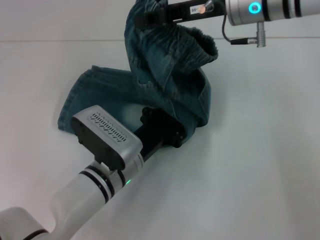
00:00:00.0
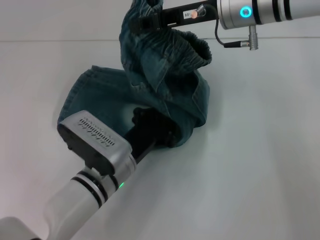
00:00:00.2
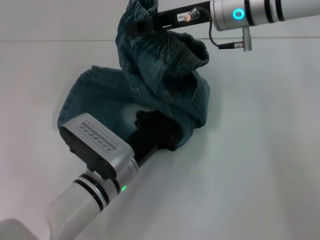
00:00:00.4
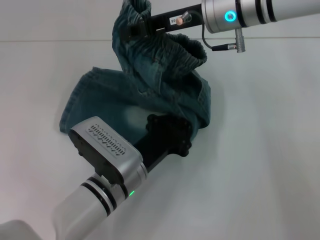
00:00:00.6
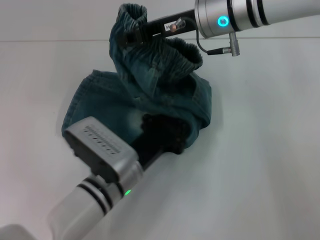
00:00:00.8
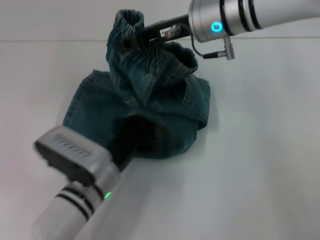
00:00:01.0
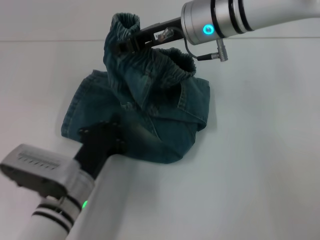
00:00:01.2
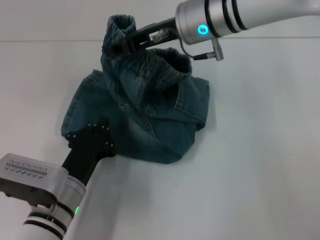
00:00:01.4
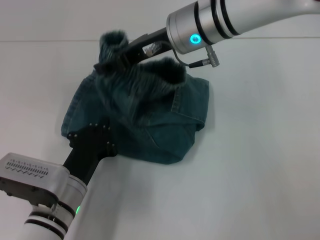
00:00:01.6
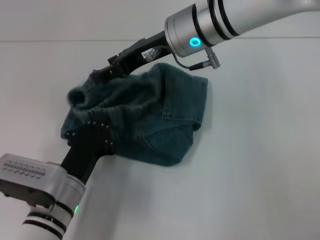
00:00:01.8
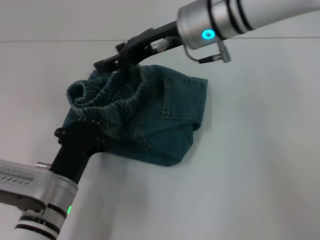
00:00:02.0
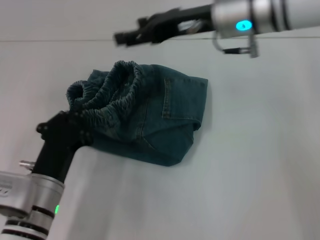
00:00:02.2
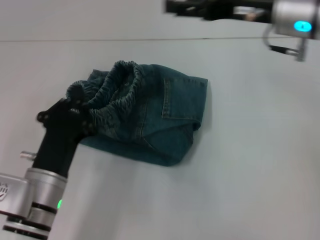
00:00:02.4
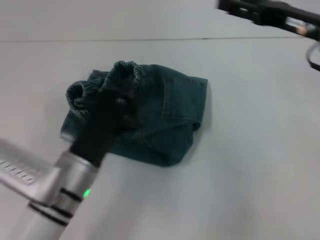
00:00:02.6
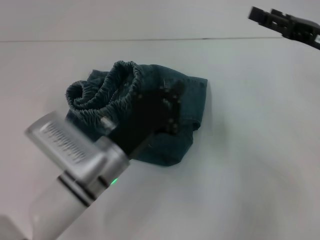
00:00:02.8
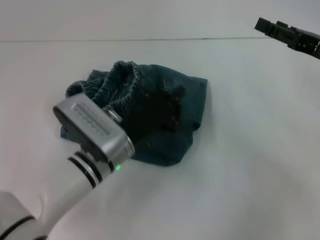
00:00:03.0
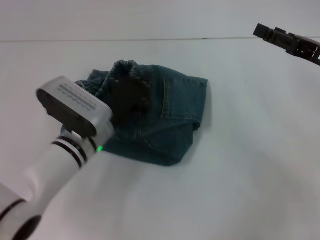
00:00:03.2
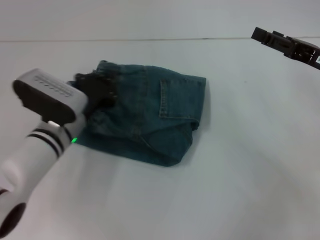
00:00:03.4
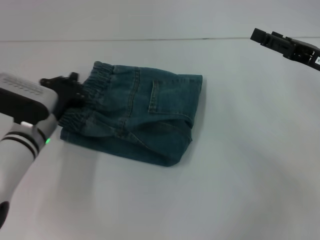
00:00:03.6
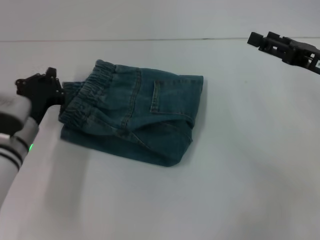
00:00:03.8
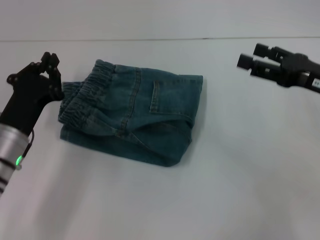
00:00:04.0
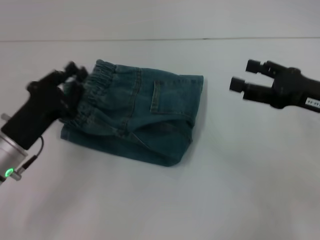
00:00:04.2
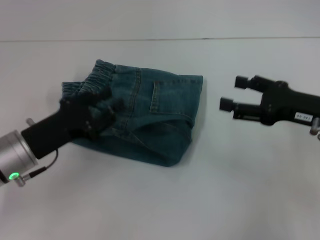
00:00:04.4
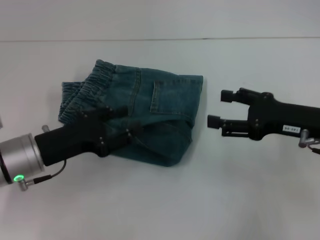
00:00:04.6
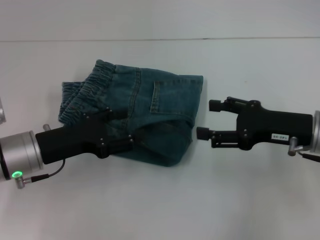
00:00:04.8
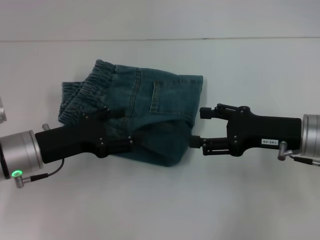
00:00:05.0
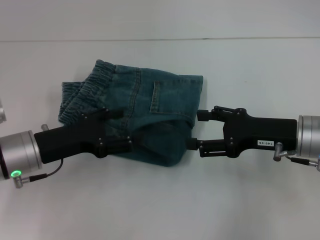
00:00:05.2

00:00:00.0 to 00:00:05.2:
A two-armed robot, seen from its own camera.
Step, 00:00:01.2 to 00:00:02.4: Fold to the left with your right hand.
Step, 00:00:02.6 to 00:00:03.8: Adjust the pants with your left hand.
00:00:00.0 to 00:00:01.8: The right gripper shifts some 10 cm to the left, and opens its fingers, while the left gripper travels to the left and backward by some 10 cm.
00:00:01.8 to 00:00:03.4: The left gripper shifts roughly 10 cm forward, while the right gripper is displaced to the right by about 25 cm, and opens its fingers.
00:00:03.4 to 00:00:05.2: The left gripper shifts approximately 10 cm to the left and backward, and opens; the right gripper heads to the left, covering roughly 5 cm.
